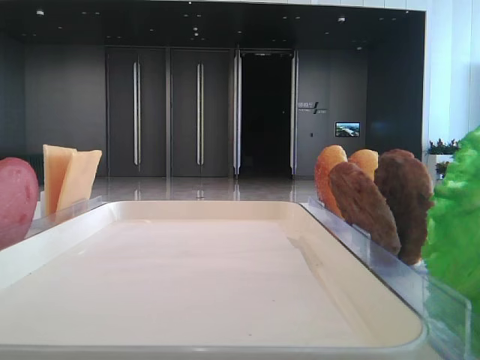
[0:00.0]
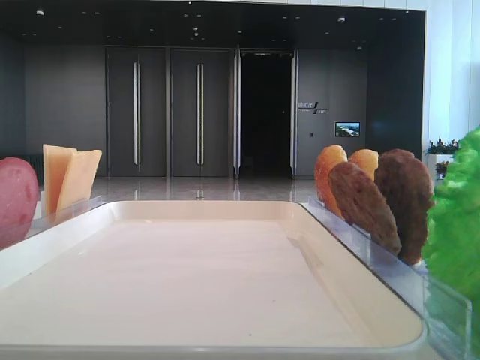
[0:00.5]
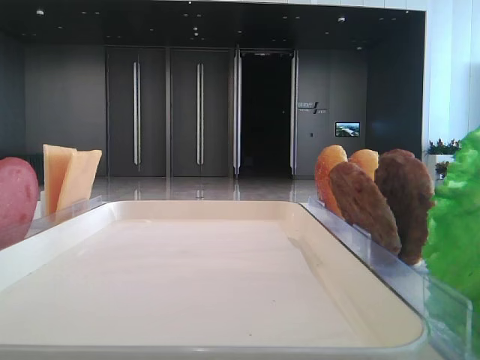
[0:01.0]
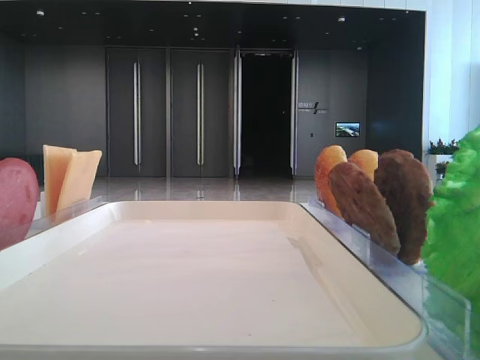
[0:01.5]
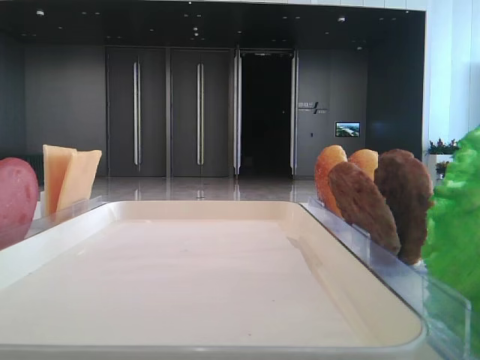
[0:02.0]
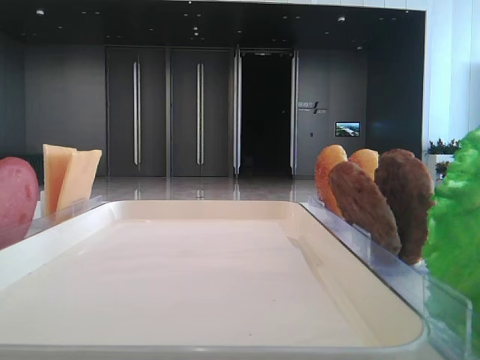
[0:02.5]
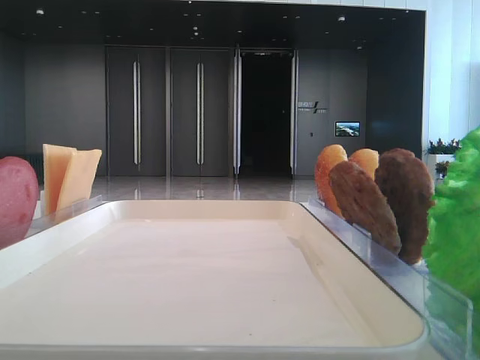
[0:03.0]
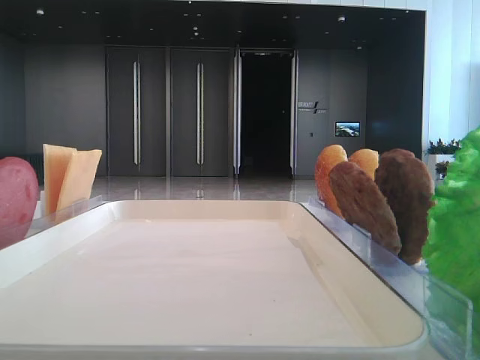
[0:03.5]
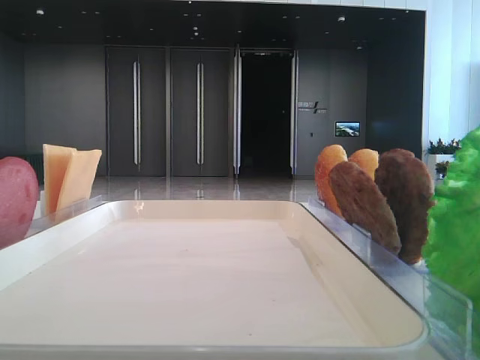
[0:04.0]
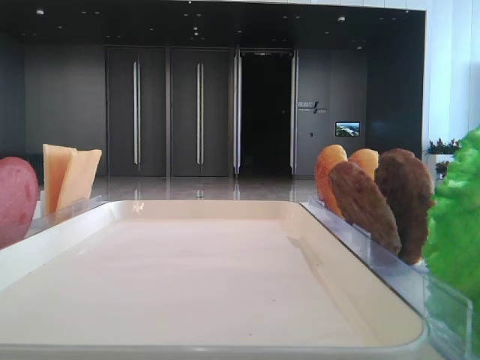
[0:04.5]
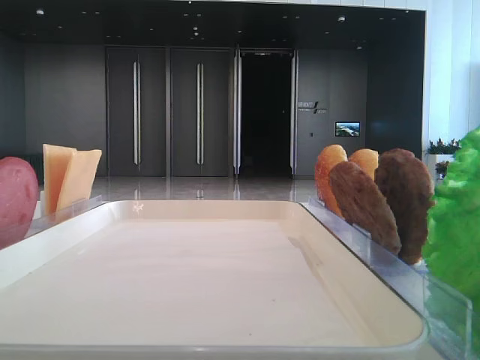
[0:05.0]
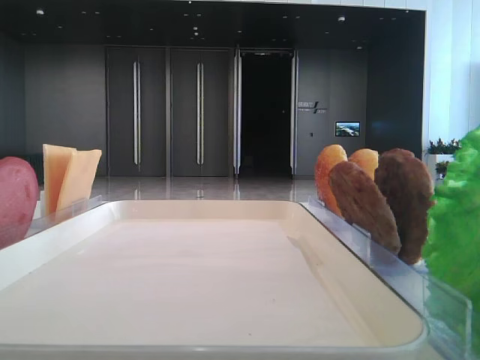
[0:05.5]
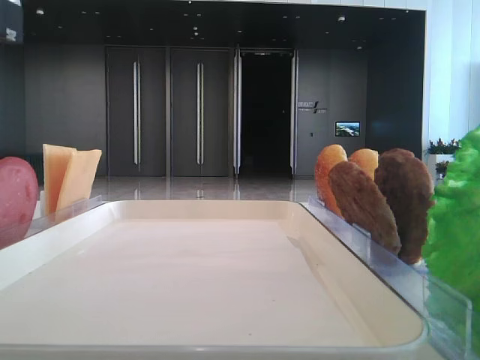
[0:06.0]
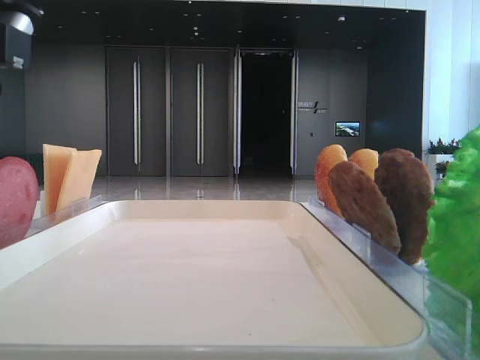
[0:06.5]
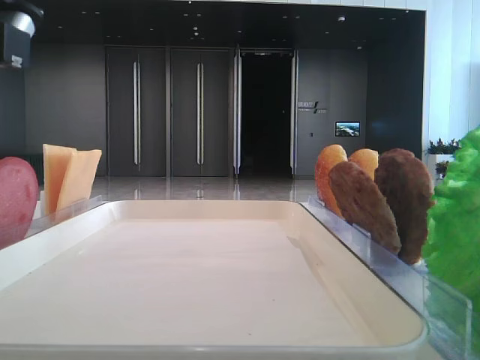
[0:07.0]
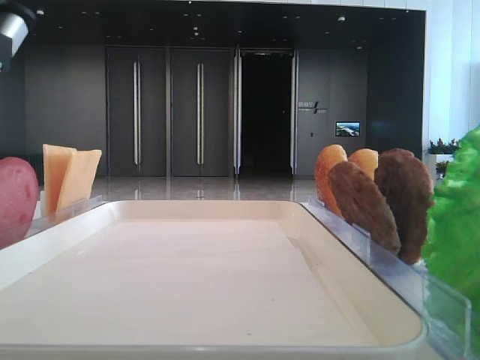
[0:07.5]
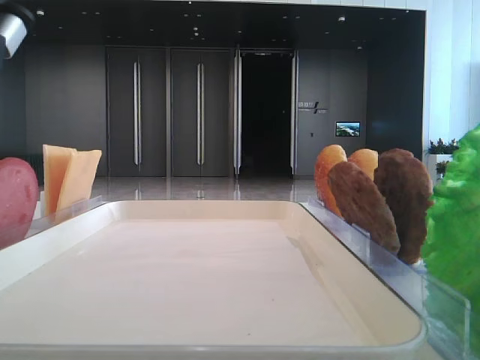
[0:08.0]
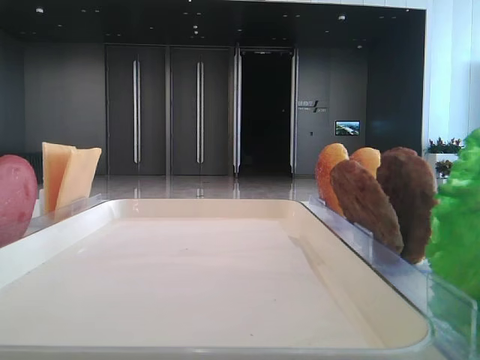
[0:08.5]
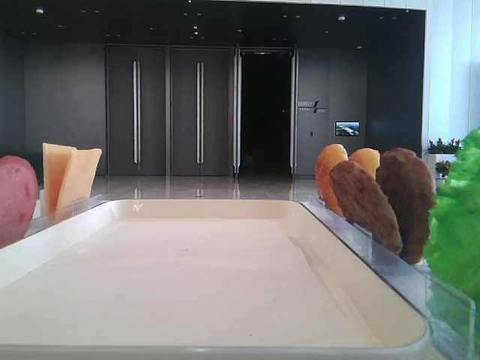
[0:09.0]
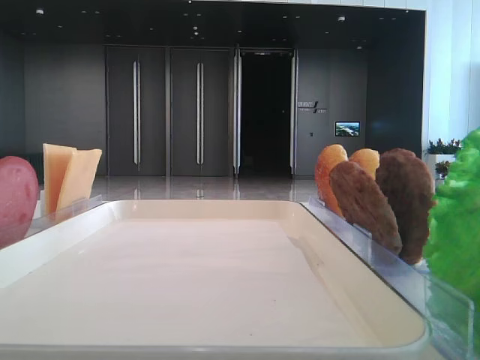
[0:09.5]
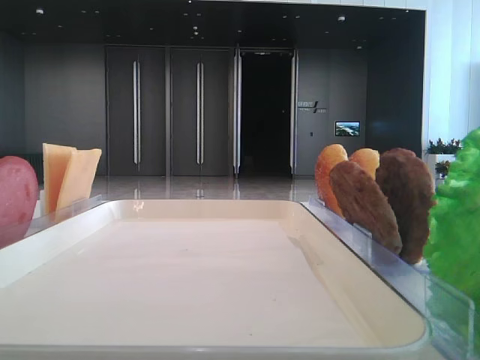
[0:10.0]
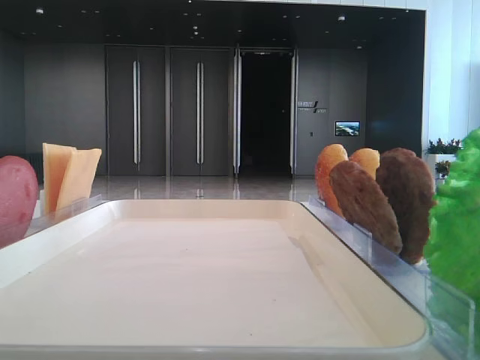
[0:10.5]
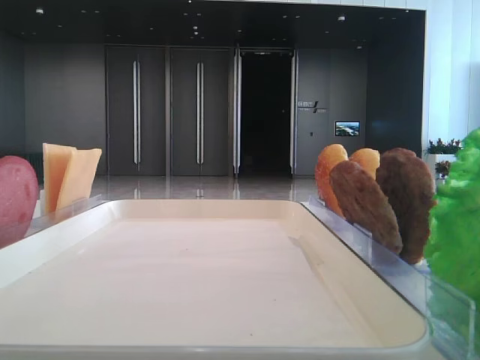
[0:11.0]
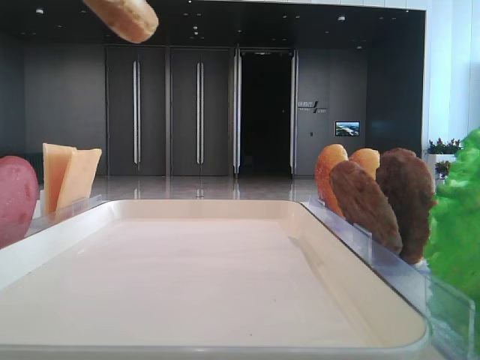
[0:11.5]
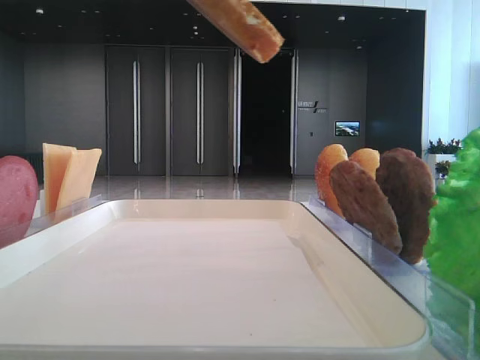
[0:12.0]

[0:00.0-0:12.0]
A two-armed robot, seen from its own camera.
0:06.0 to 0:08.0: The left gripper closes its fingers.
0:08.0 to 0:10.0: The left gripper is displaced upward by about 10 cm.
0:10.0 to 0:12.0: The left gripper goes some 10 cm to the right.

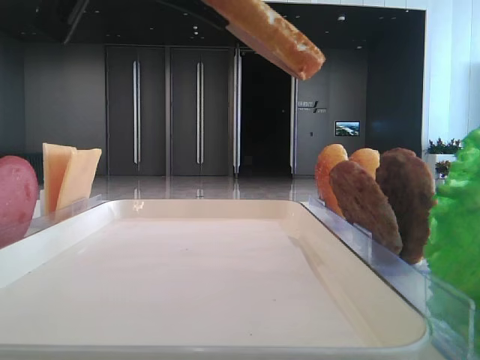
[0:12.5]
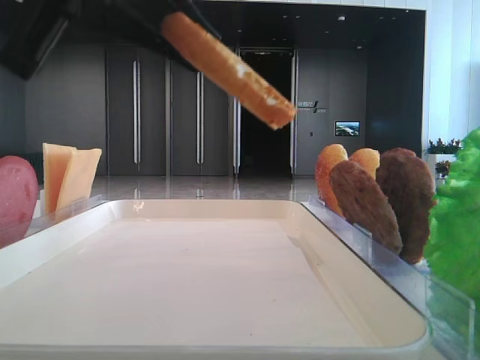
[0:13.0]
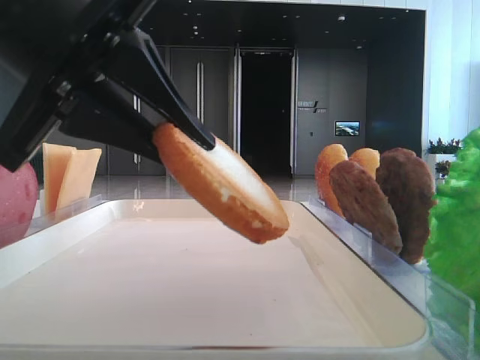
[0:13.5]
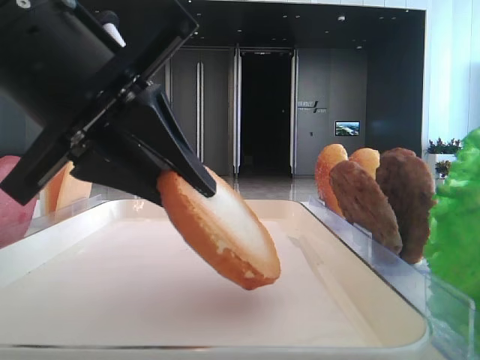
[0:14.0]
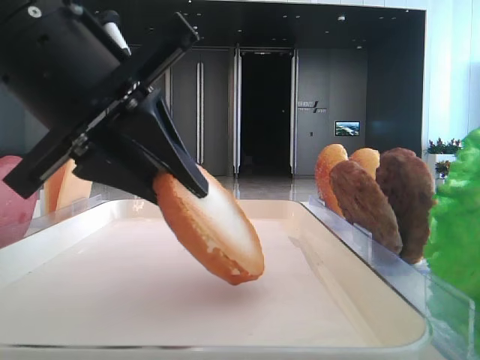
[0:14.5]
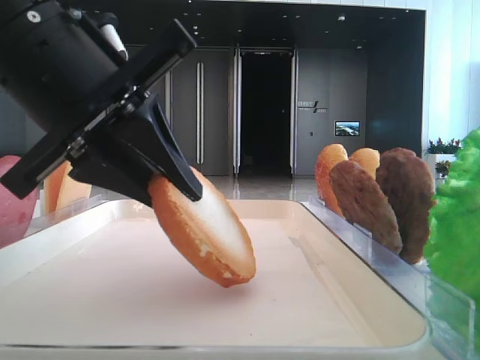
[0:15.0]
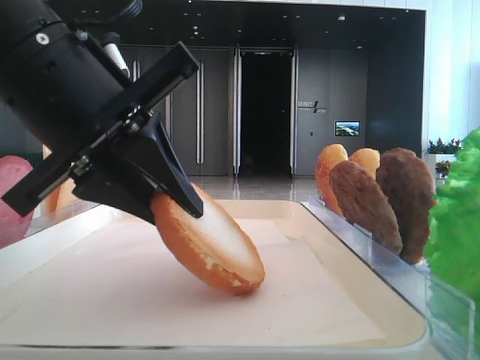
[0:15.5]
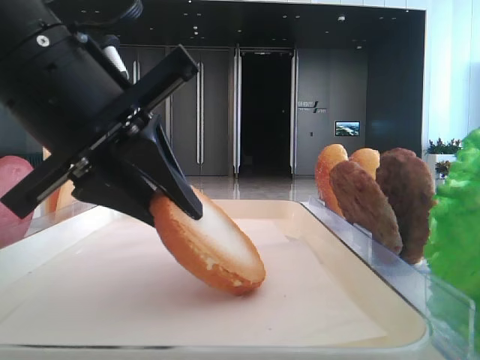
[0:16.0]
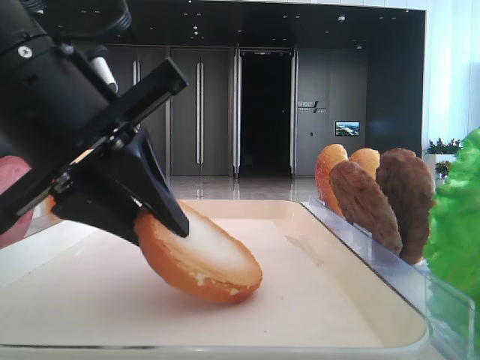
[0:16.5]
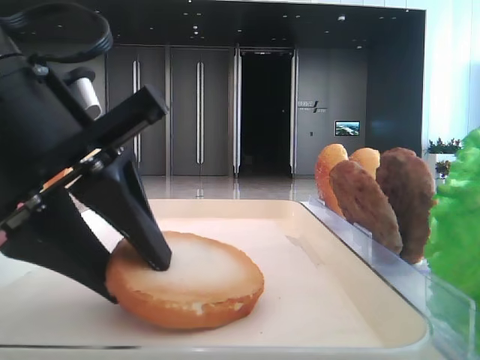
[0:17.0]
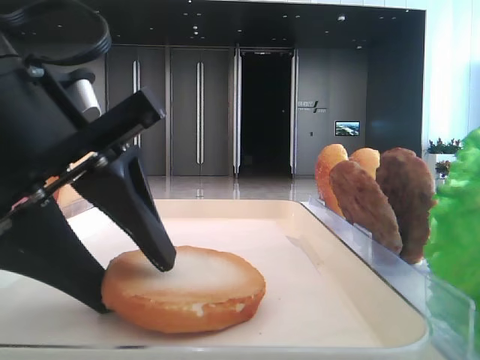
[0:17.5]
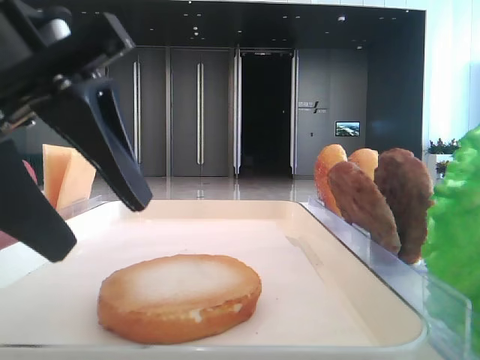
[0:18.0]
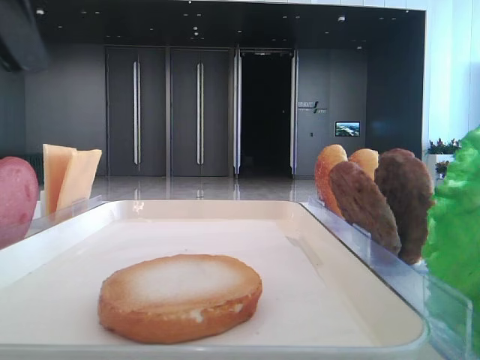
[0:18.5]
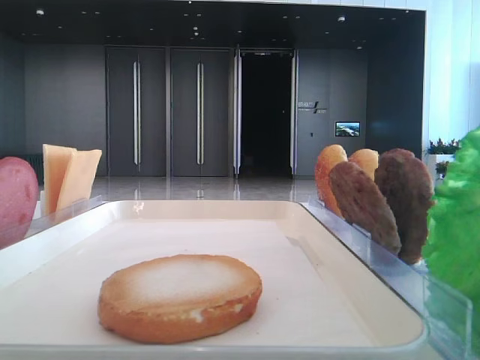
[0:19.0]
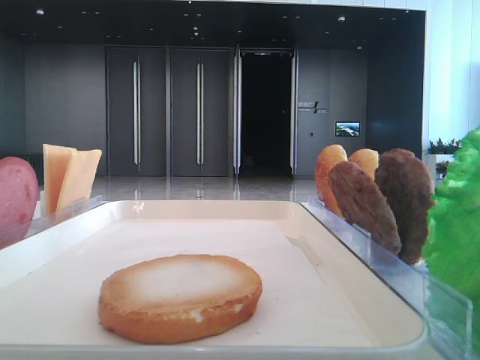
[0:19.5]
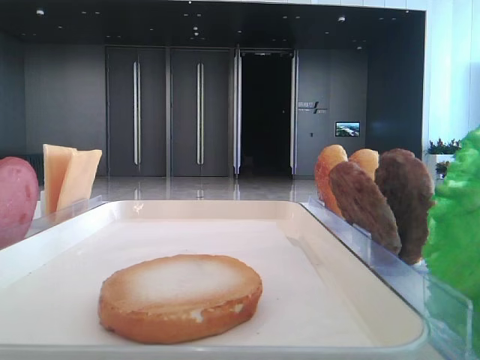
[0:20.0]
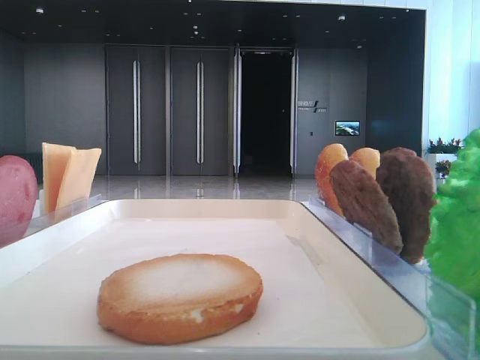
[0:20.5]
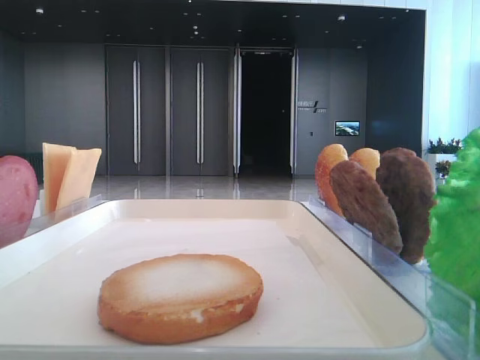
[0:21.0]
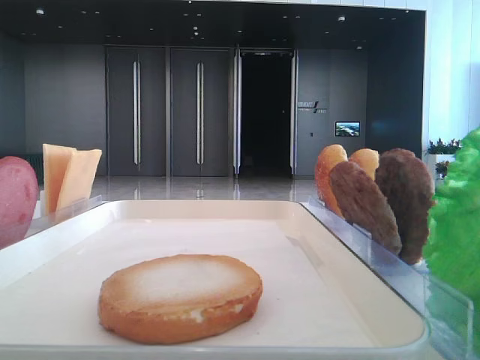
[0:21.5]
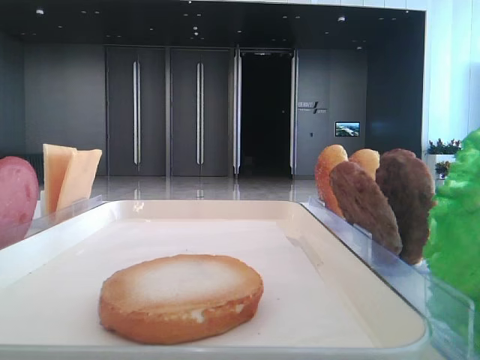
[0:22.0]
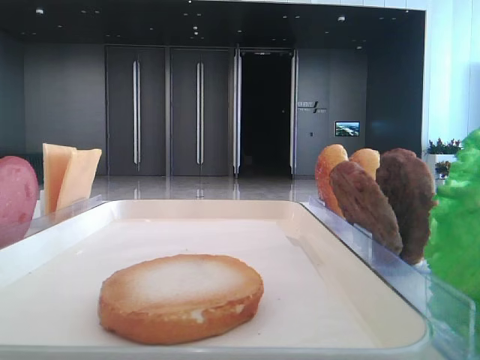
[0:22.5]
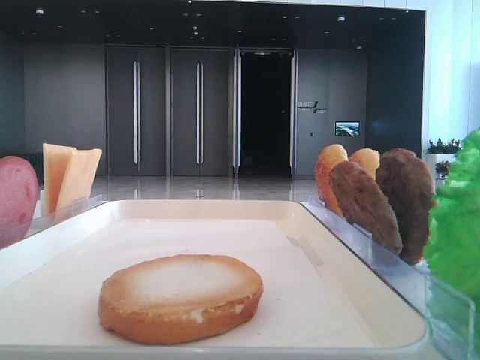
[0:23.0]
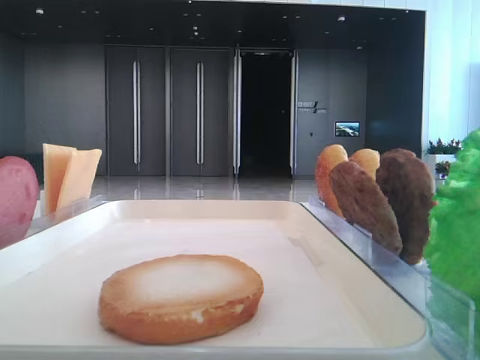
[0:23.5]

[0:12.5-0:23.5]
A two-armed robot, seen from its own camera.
Step, 0:12.5 to 0:17.5: Place the bread on the tray with the left hand.
0:12.5 to 0:14.5: The left gripper goes some 10 cm downward.
0:14.5 to 0:16.0: Both grippers stay put.
0:16.0 to 0:18.0: The left gripper moves some 5 cm, and opens its fingers.
0:18.0 to 0:20.0: The left gripper is displaced upward and to the left by roughly 15 cm.

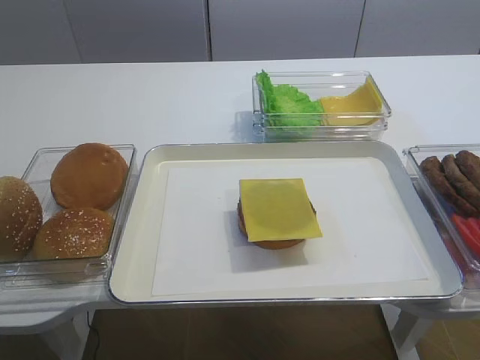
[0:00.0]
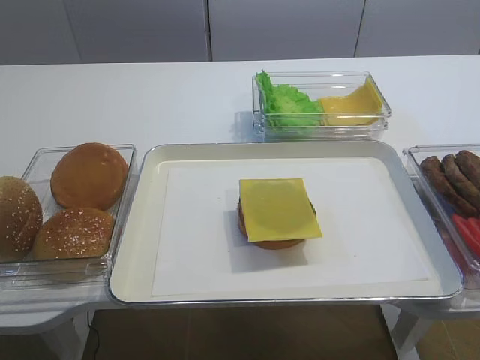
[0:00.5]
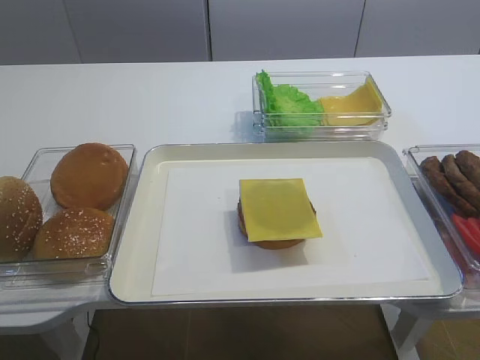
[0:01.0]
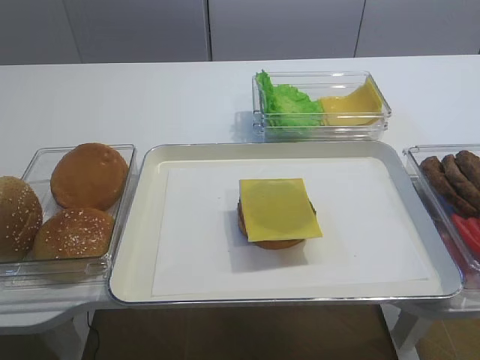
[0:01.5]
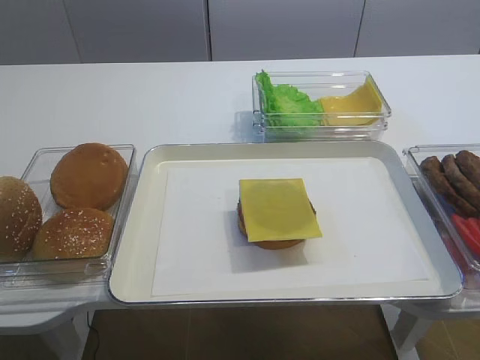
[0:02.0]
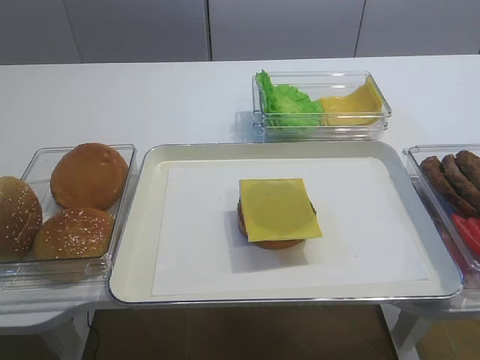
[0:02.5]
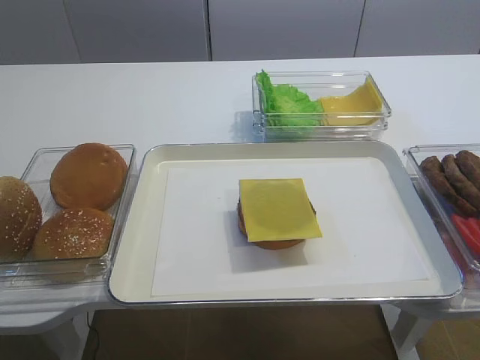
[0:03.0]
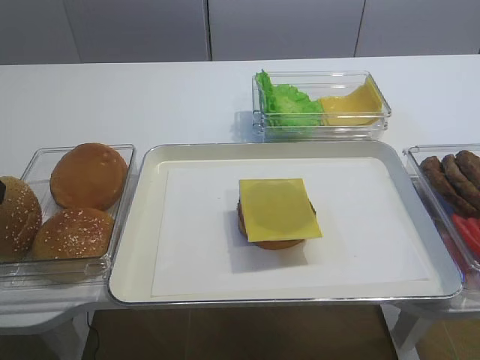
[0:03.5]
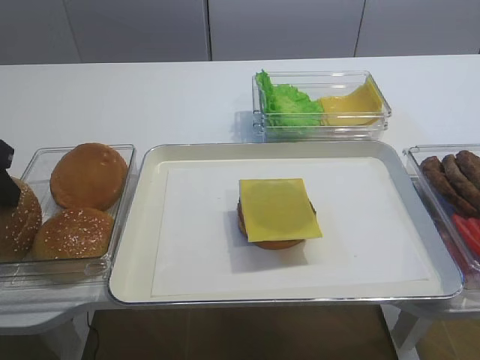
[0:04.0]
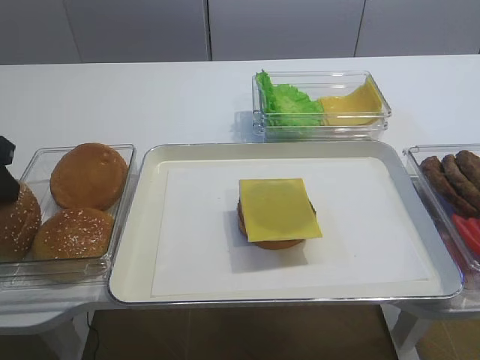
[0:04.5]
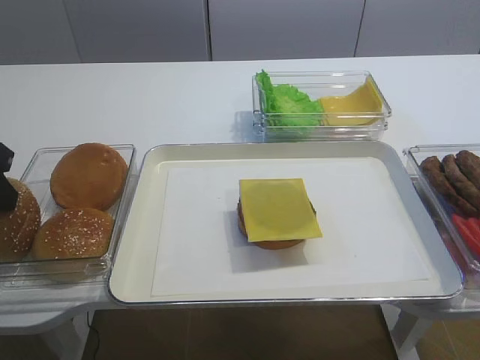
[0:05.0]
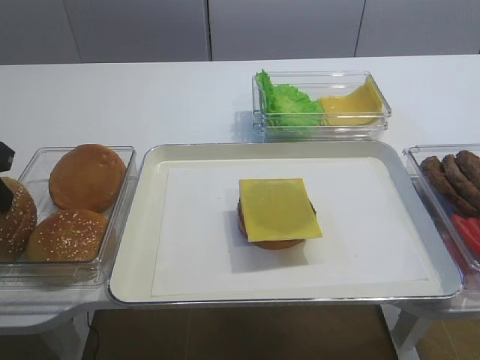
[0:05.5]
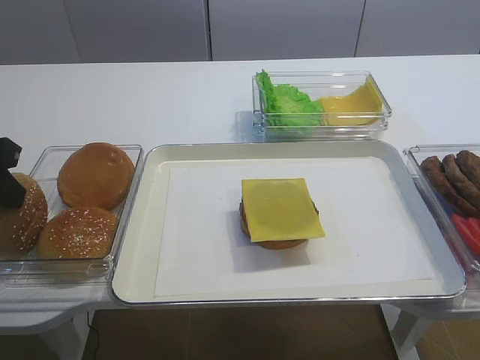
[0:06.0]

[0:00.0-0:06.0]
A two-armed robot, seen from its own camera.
0:04.0 to 0:06.0: The left gripper closes its fingers.
